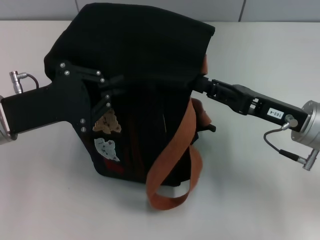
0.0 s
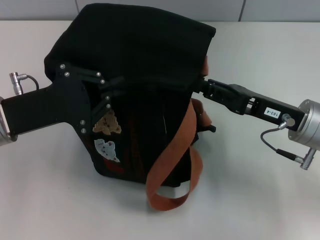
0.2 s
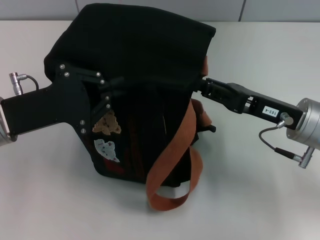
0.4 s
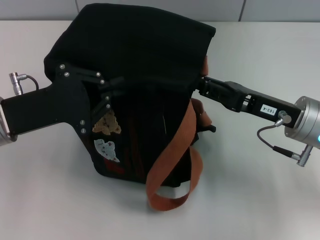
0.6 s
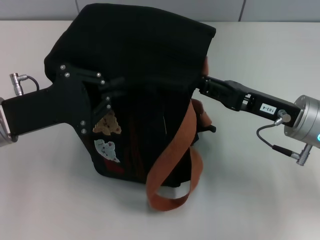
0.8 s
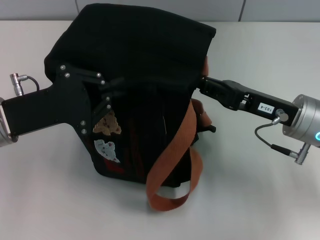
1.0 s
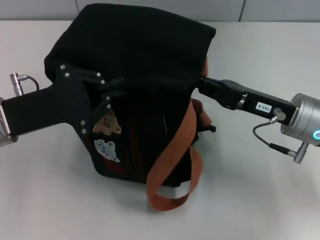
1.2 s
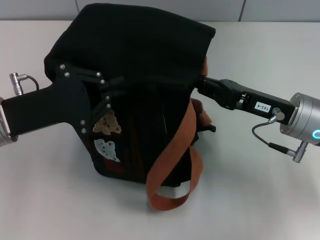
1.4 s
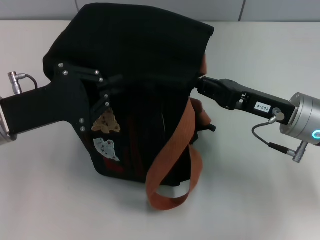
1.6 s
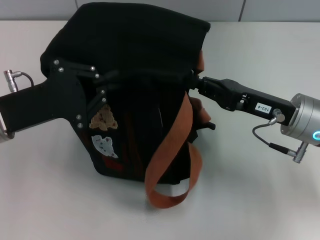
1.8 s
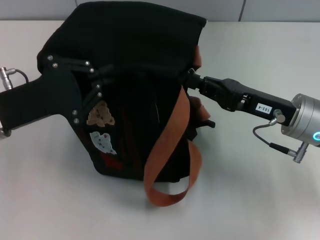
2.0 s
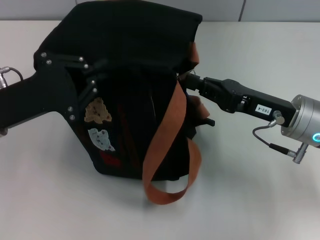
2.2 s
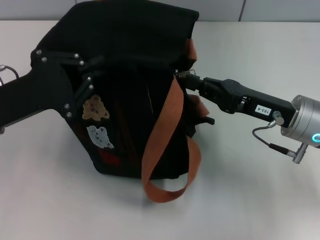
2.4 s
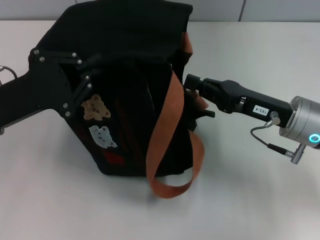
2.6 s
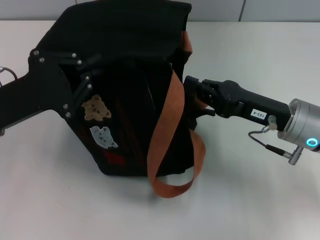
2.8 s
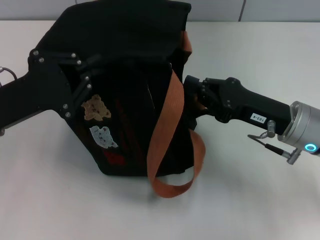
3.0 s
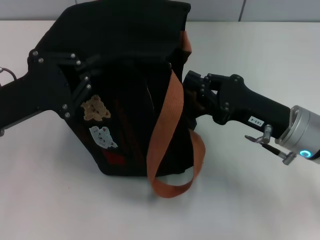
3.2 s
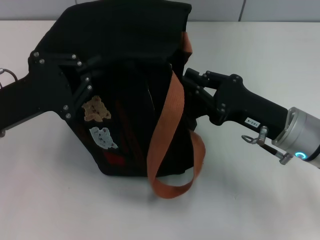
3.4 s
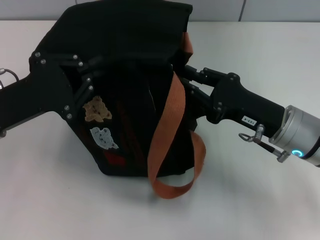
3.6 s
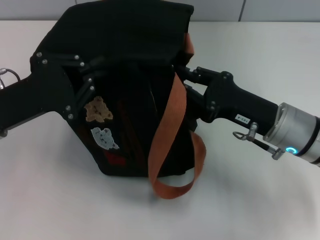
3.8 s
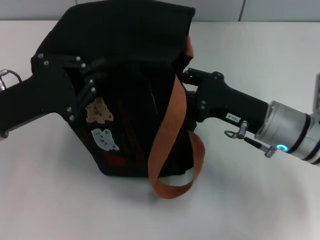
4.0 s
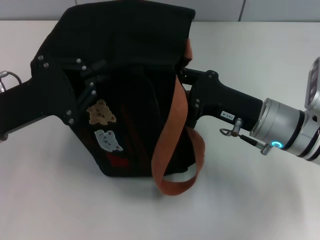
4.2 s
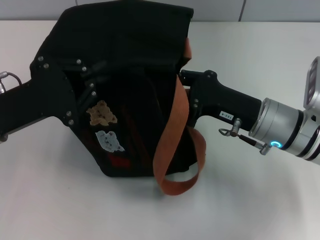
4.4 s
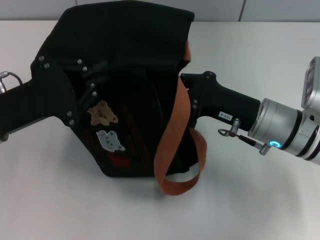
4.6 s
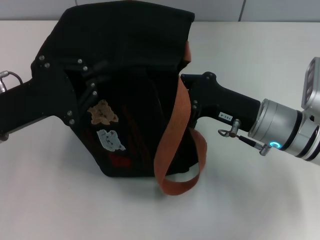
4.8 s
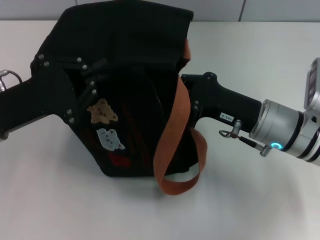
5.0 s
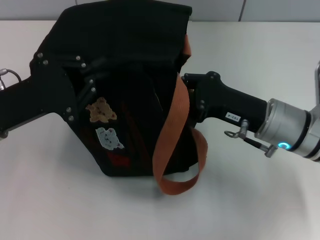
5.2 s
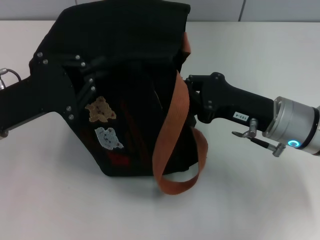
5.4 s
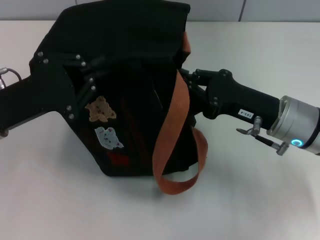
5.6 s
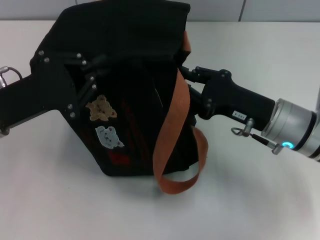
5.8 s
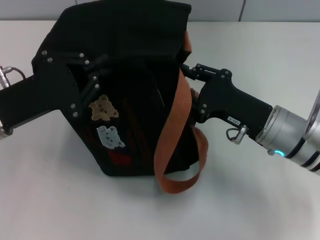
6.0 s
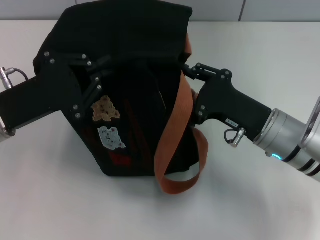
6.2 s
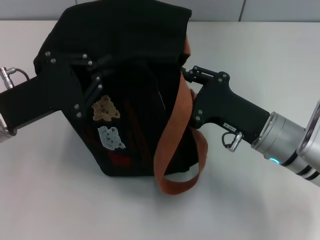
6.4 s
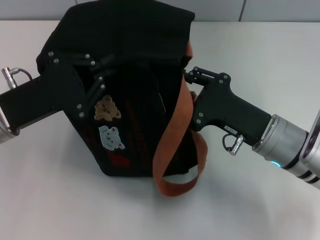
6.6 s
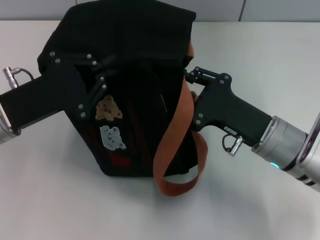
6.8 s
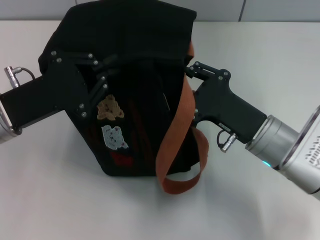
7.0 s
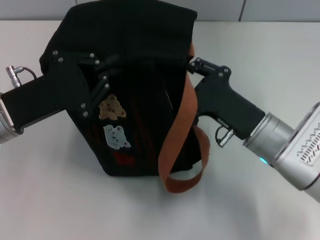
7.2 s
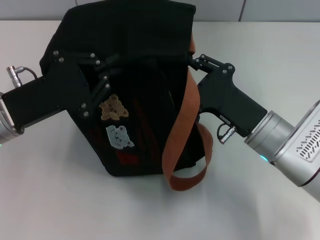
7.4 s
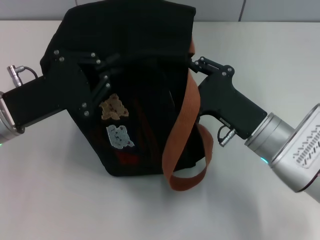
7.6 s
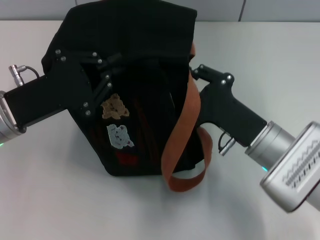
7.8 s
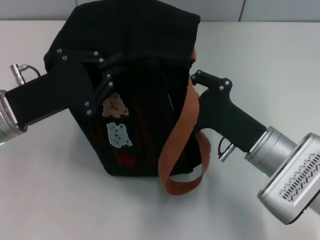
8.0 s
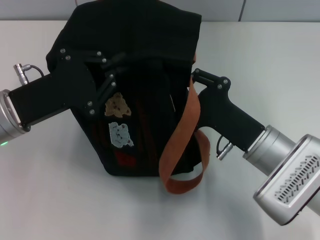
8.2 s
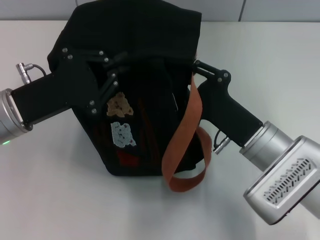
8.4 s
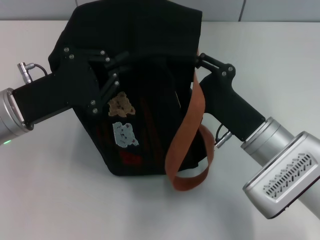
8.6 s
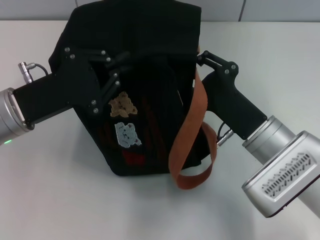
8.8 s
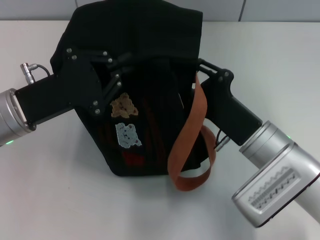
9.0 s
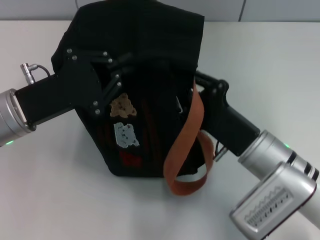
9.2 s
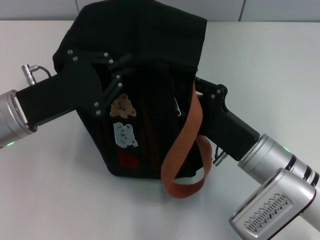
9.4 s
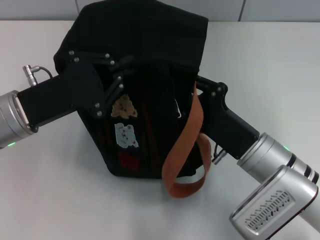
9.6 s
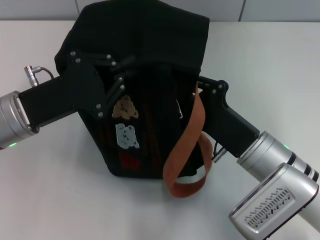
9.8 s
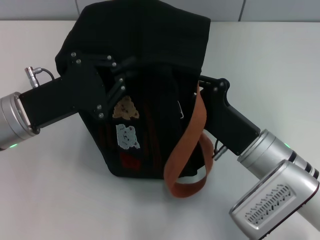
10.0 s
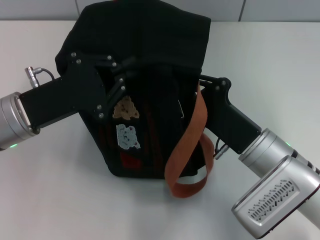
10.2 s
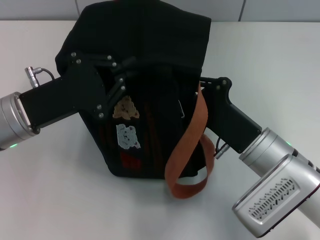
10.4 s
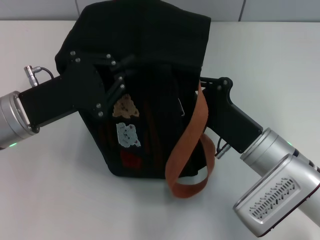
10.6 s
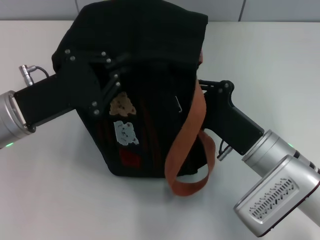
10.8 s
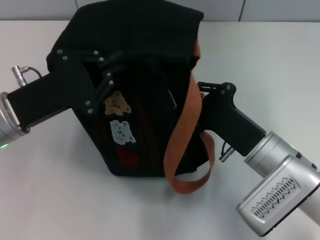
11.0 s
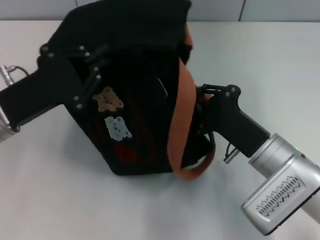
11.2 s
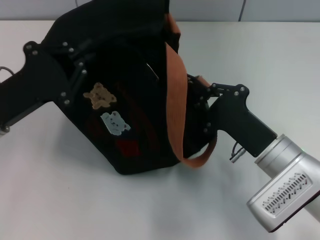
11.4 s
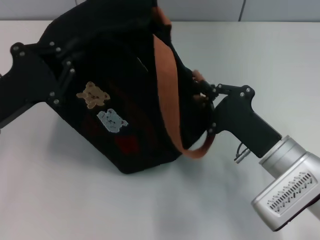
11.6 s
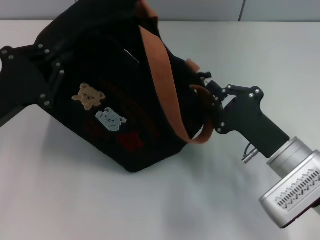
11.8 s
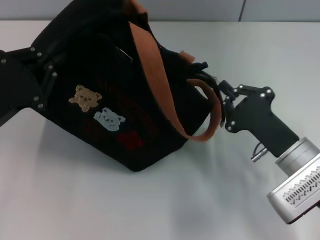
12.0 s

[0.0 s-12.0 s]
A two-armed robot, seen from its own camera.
0.0 to 1.6 s: The right gripper closes its fingers.
3.0 to 4.4 s: There are only small adjustments of the grippers.
4.4 to 6.0 s: The grippers make only small movements.
6.0 to 7.6 s: The grippers move only a little.
9.0 to 10.4 s: The grippers stay close to where they were, moving slightly.
10.4 to 12.0 s: The left gripper moves to the left, approximately 5 cm; the right gripper goes about 5 cm to the right.

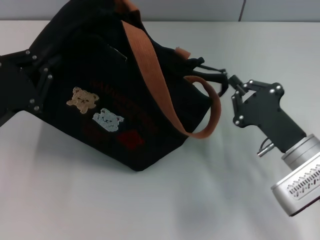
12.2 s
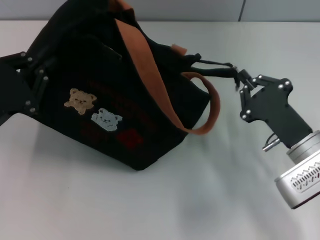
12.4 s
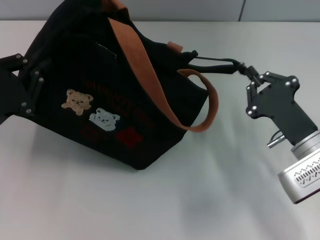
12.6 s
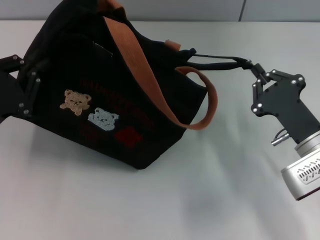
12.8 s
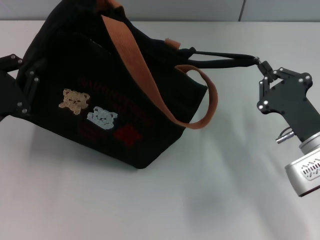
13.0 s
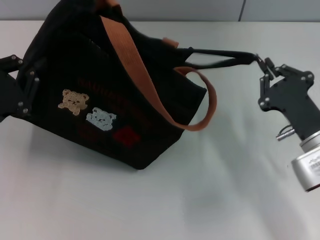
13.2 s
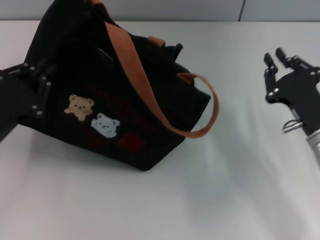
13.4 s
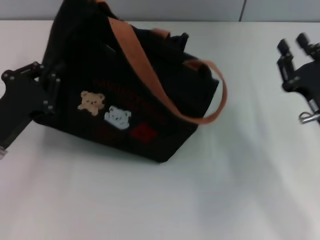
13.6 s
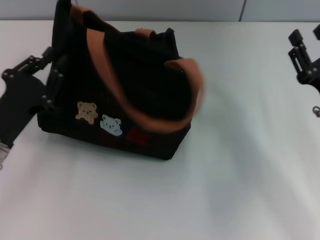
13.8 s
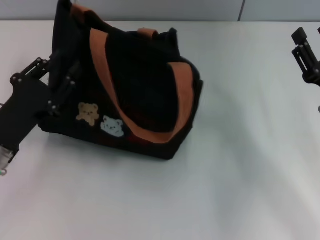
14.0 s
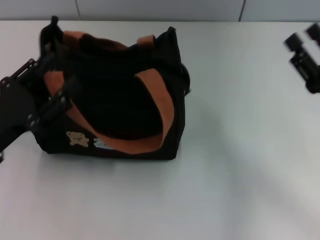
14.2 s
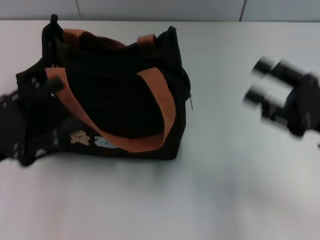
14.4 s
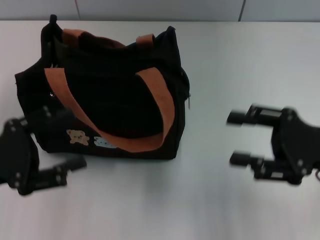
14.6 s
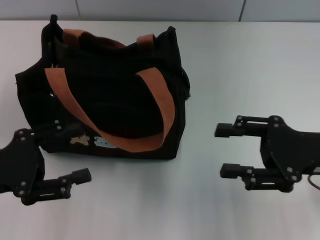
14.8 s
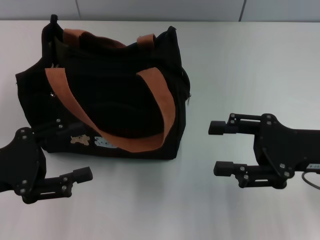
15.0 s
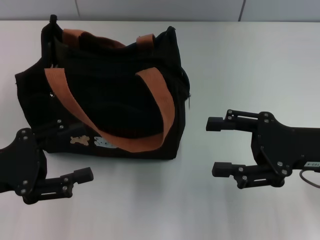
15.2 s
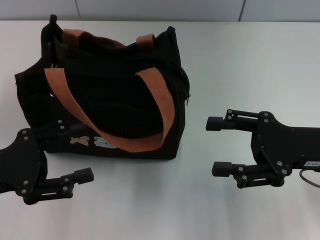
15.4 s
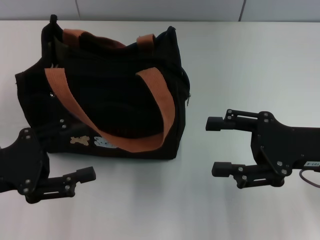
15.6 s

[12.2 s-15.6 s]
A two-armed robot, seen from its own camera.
Step, 13.4 to 13.8 s: Grab the bag with your left hand.
12.2 to 13.8 s: The right gripper travels to the right by roughly 5 cm, and opens up.
13.8 to 15.6 s: The right gripper is displaced upward by roughly 5 cm, and opens its fingers, while the left gripper moves approximately 5 cm, and opens its fingers.

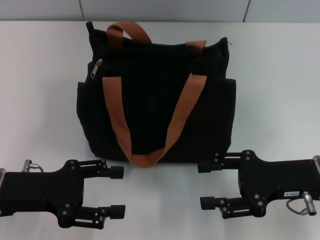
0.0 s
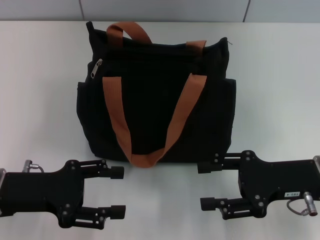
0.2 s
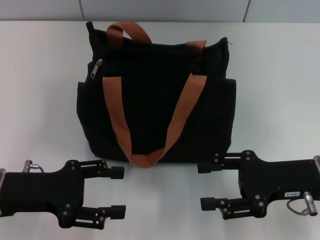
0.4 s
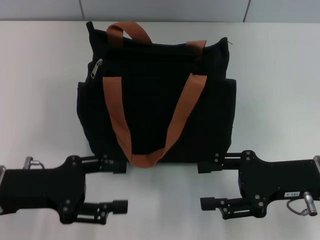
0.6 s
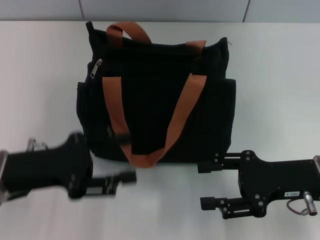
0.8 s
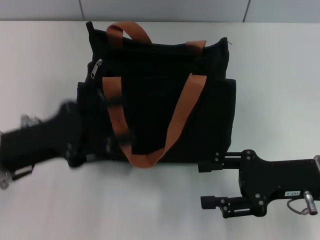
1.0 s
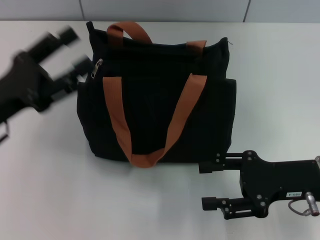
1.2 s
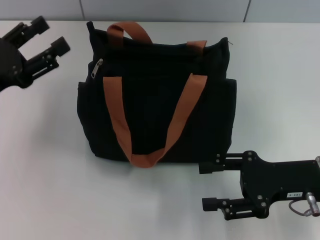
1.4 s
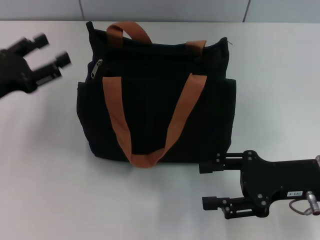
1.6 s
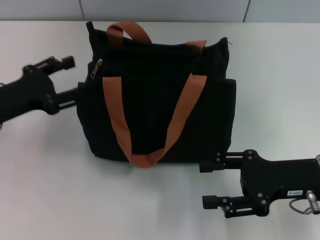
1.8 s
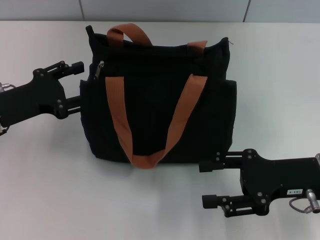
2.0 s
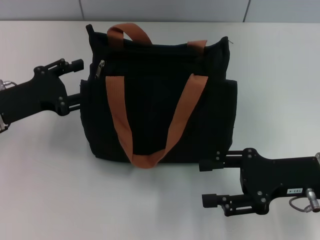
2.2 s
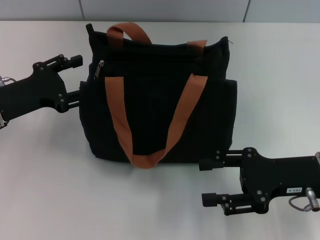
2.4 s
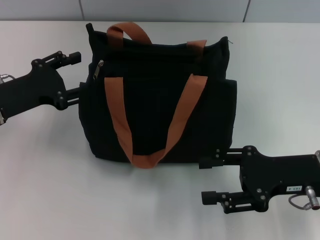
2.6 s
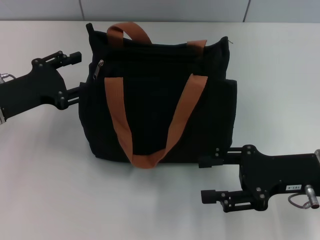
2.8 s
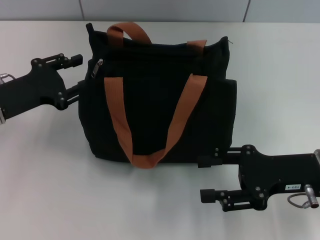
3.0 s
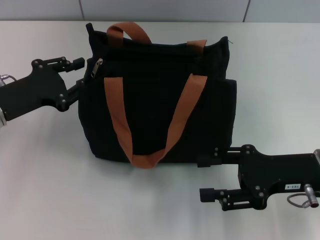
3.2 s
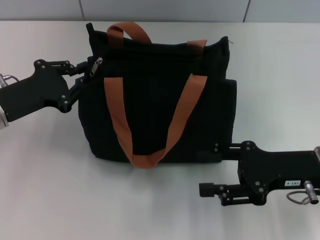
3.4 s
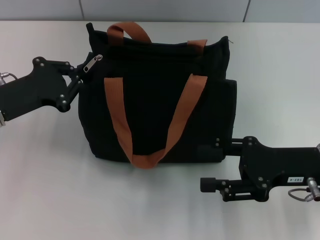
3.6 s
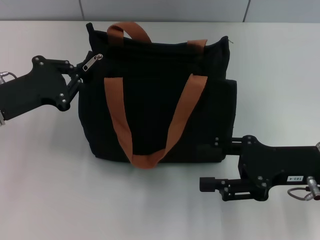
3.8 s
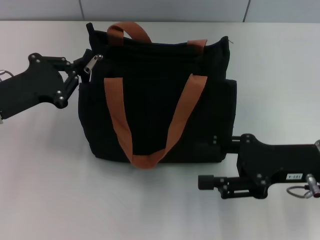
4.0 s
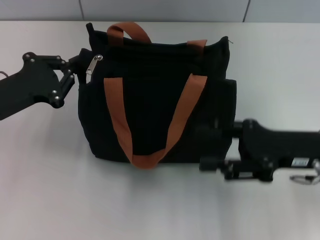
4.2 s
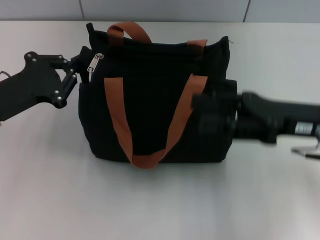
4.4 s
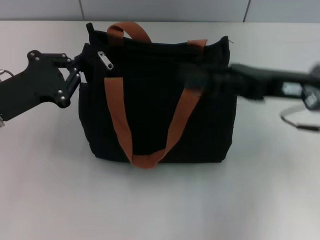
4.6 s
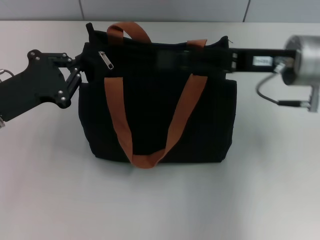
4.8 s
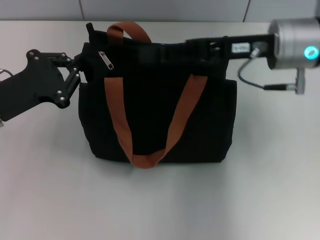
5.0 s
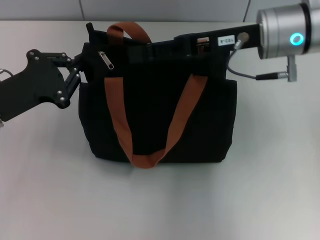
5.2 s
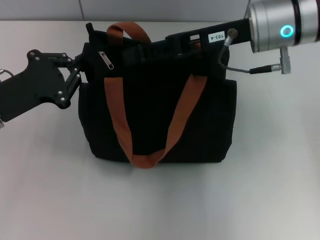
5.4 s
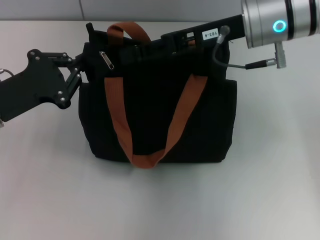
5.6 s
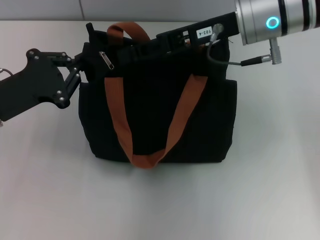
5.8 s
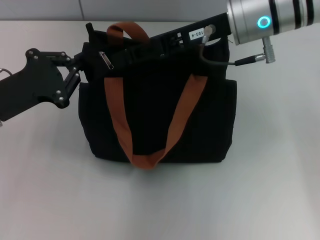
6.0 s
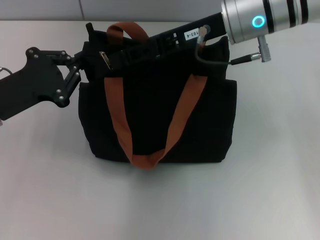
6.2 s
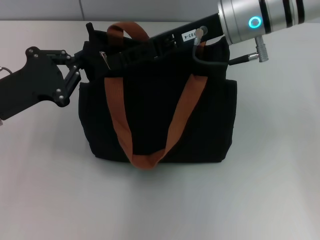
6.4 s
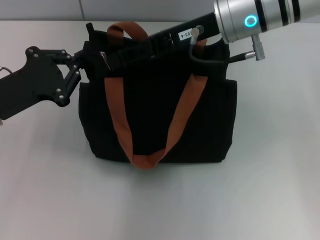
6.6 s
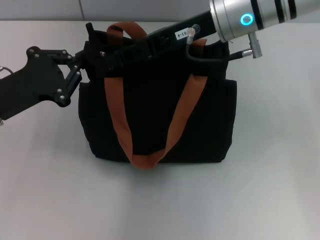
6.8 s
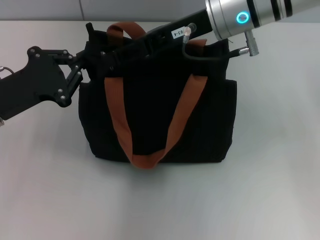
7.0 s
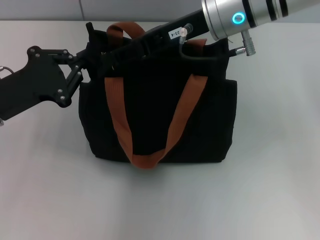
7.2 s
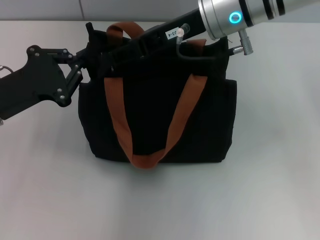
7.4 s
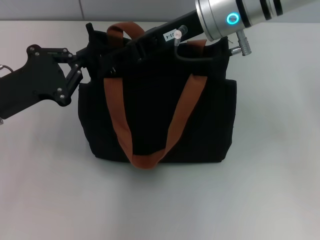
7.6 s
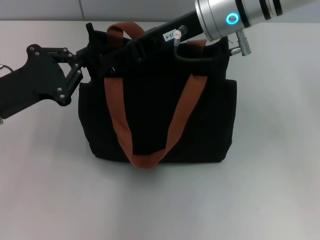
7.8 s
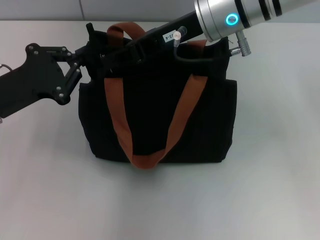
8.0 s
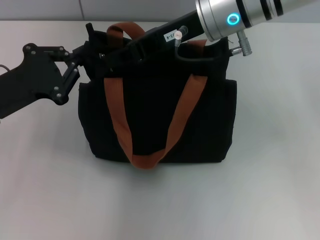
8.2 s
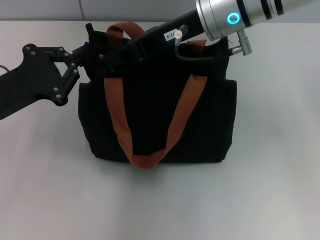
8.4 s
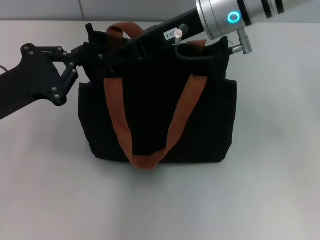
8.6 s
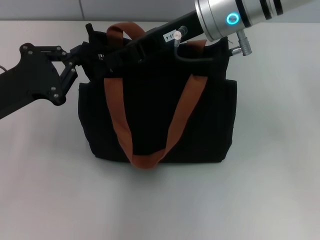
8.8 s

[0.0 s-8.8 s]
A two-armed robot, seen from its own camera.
0.0 to 1.4 s: The left gripper travels forward by approximately 5 cm.
3.0 to 4.4 s: The left gripper closes its fingers. The right gripper ends up approximately 5 cm from where it was.
4.4 to 5.8 s: The right gripper moves forward, to the left and upward, some 15 cm.
5.8 to 7.4 s: The right gripper closes its fingers.
7.4 to 8.8 s: The right gripper closes its fingers.
